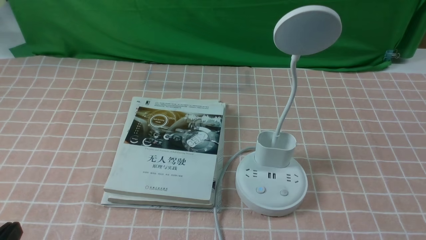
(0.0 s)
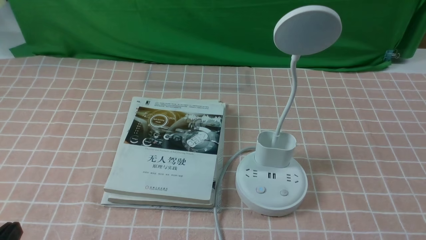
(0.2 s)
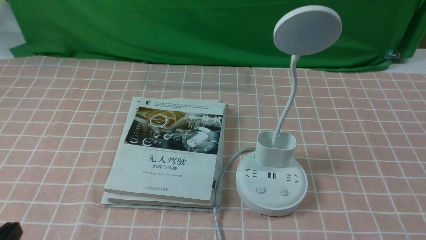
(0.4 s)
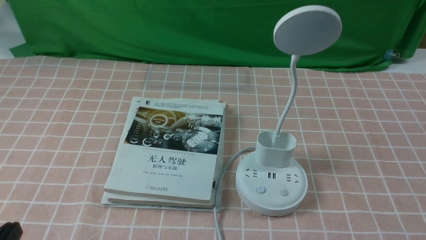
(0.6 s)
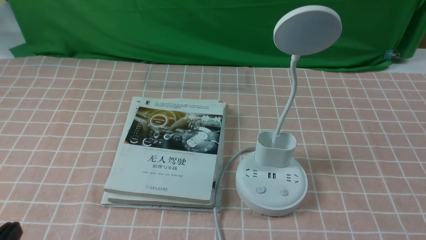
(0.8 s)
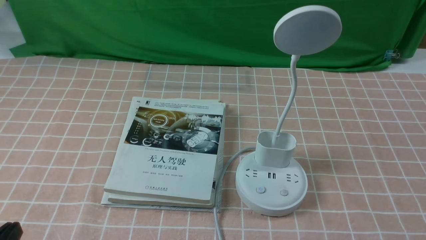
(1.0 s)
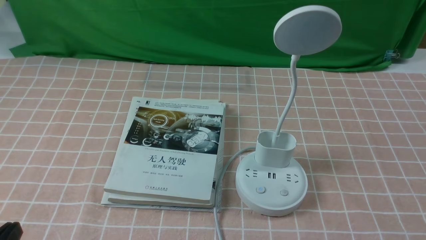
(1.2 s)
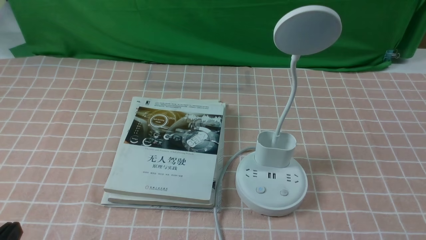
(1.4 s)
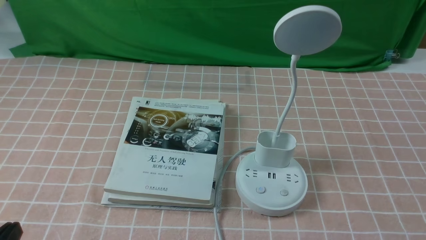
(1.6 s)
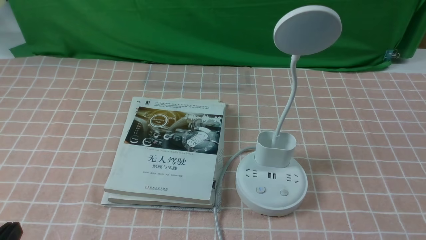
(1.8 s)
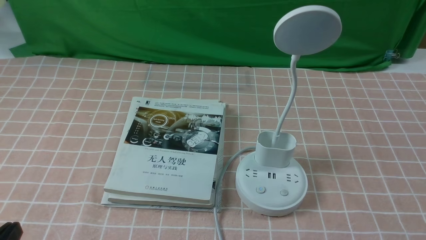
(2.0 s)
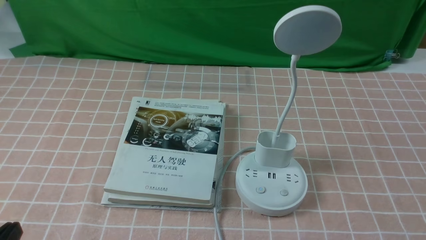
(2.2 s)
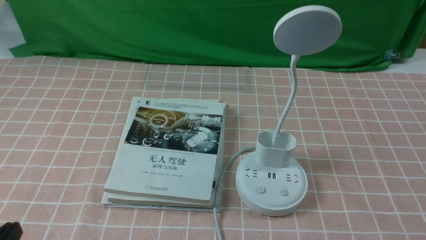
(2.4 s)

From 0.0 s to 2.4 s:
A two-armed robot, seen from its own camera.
Task of the whole recording: turn off the table lamp on the pink coffee tablecloth by hand.
From 1.2 s to 2.4 s: Both grippers stay put.
